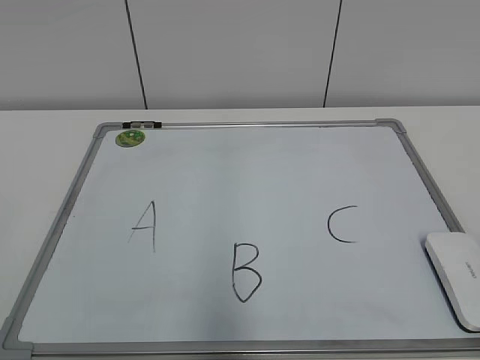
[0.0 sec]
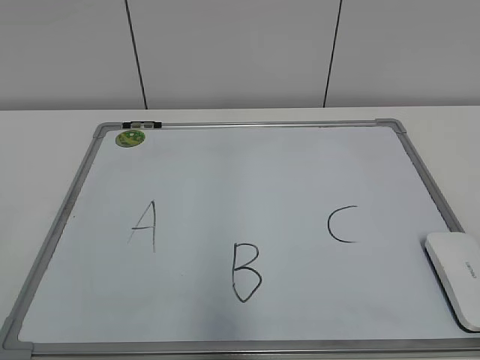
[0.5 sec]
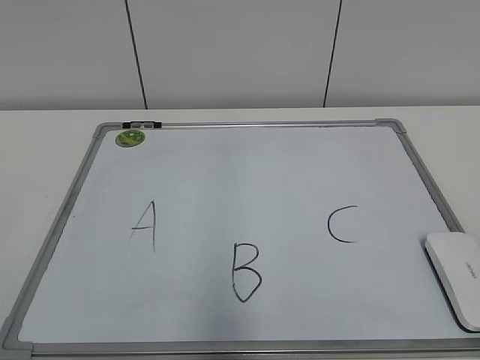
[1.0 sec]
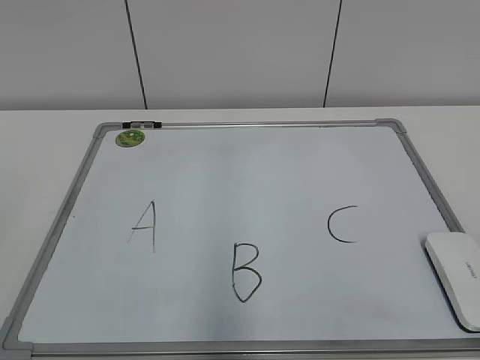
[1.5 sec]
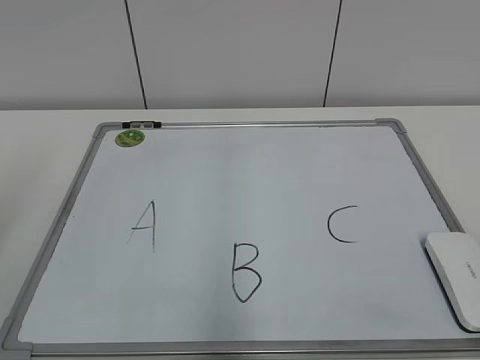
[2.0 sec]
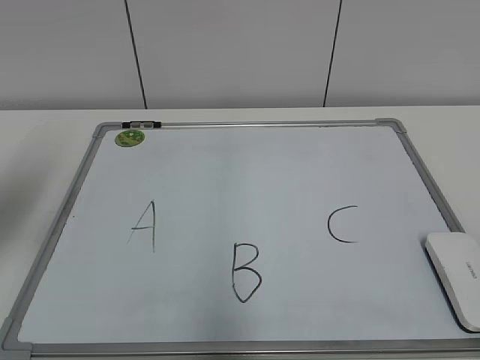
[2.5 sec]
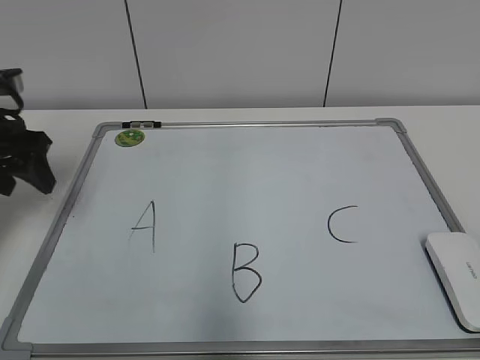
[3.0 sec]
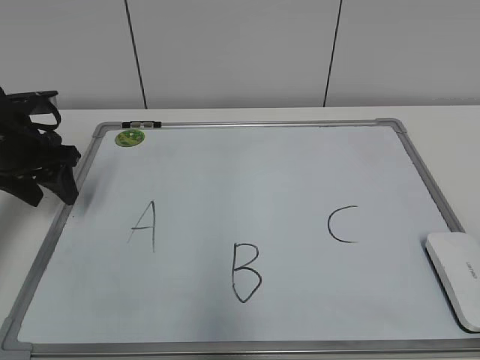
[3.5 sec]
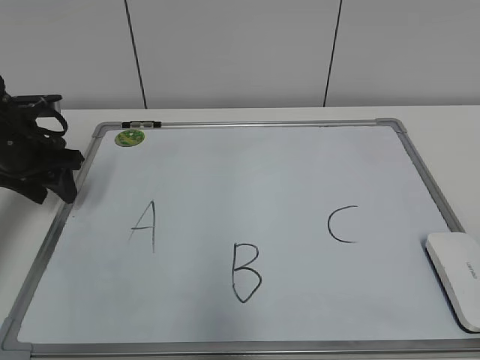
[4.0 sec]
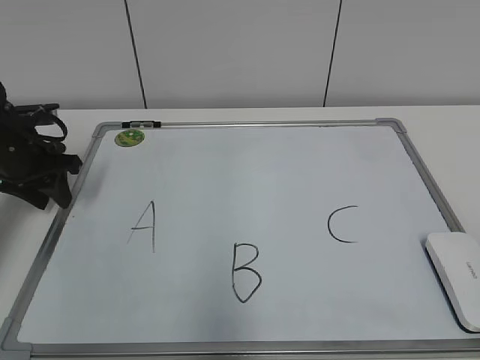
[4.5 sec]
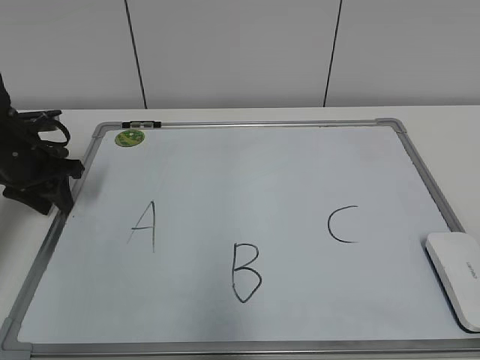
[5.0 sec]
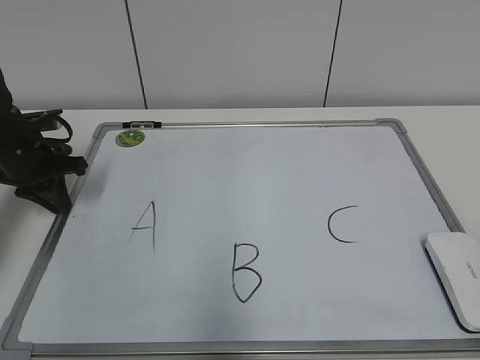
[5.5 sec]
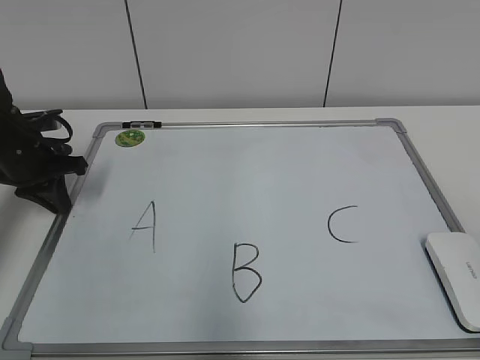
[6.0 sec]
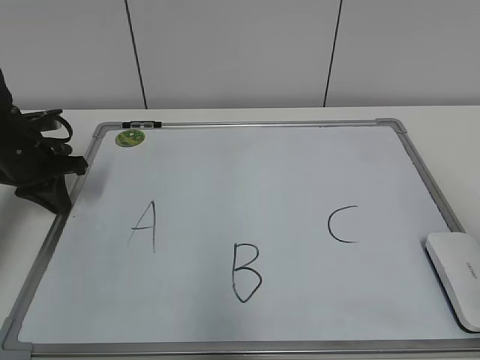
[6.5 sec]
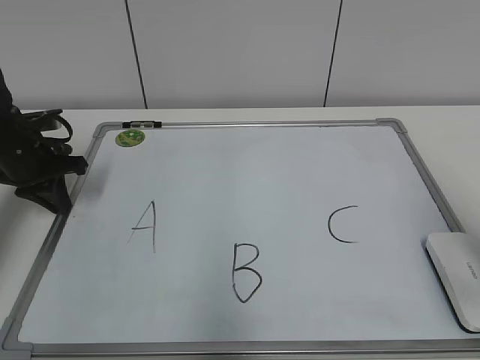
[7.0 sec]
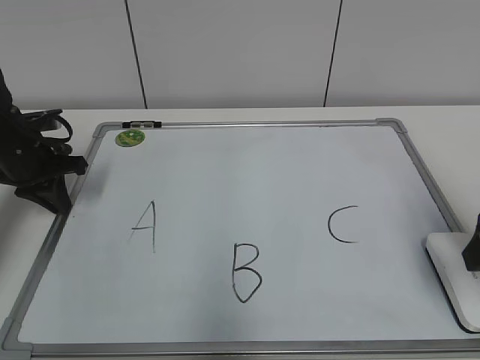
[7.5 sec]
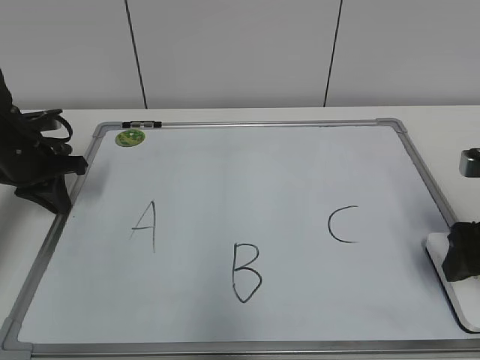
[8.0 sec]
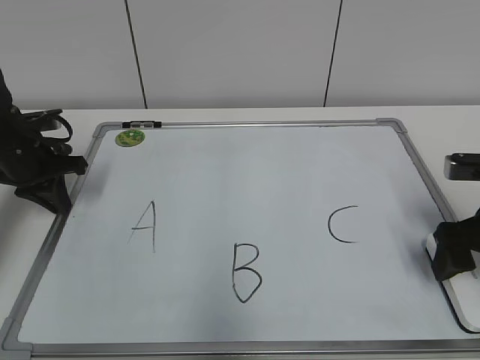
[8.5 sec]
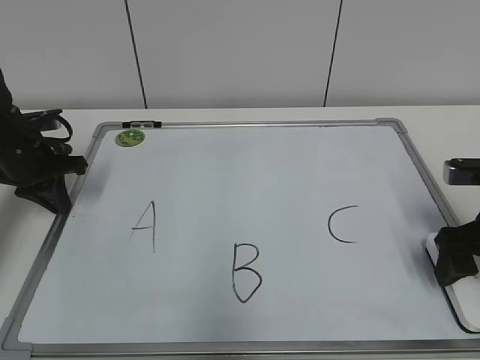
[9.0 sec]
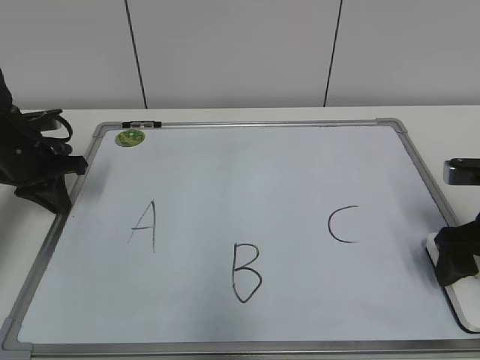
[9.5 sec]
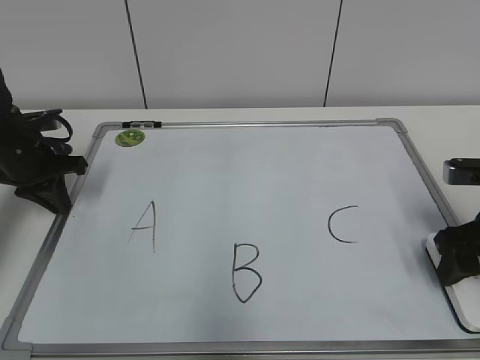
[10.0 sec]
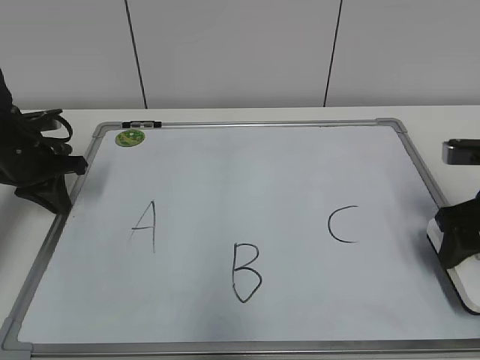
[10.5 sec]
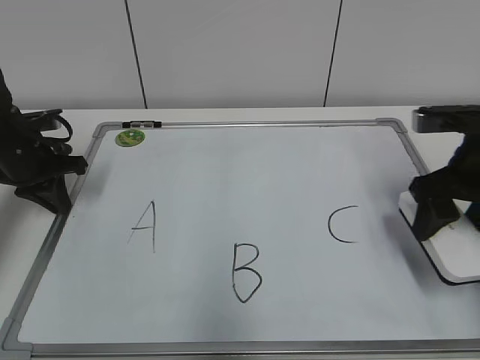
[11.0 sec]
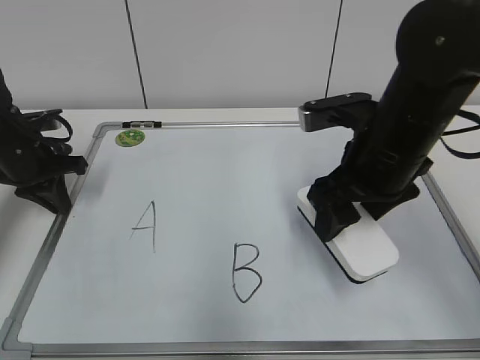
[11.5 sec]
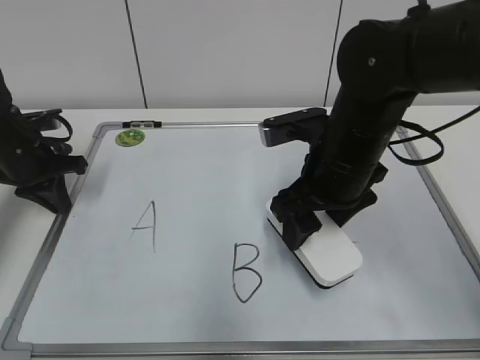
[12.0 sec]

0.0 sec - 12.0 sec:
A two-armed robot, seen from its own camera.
Task of the whole recording: pick up the eraser on the blackboard and erase the letter "B".
Step, 0.0 sec - 5.5 sec: Hold the drawing board steady with your left hand.
Step, 6.5 sec - 9.5 sec: Grab the eraser with your right hand.
2.0 sec - 4.0 sec: The left gripper is displaced forward and downward by roughly 30 cm.
4.0 sec - 6.0 sec: The left gripper closes up.
6.0 sec - 8.0 sec: The right gripper heads forward and downward, covering roughly 30 cm, and opens up.
8.0 sec - 10.0 sec: The right gripper closes.
10.0 sec - 12.0 sec: The right gripper travels to the left by roughly 20 cm.

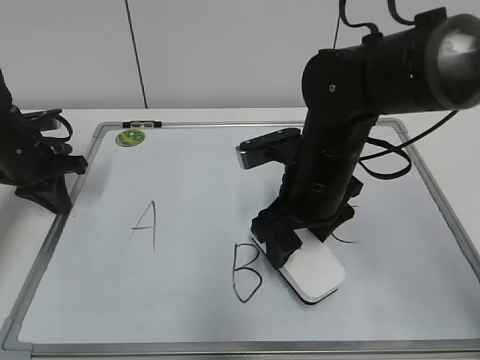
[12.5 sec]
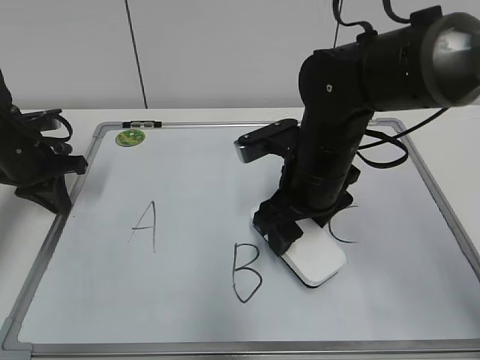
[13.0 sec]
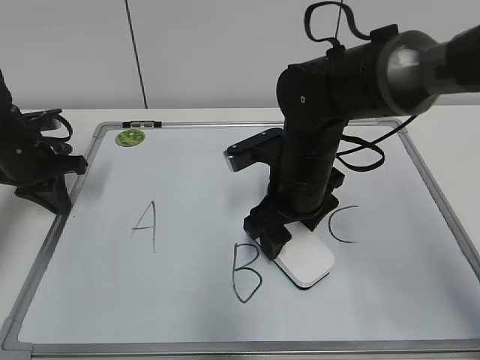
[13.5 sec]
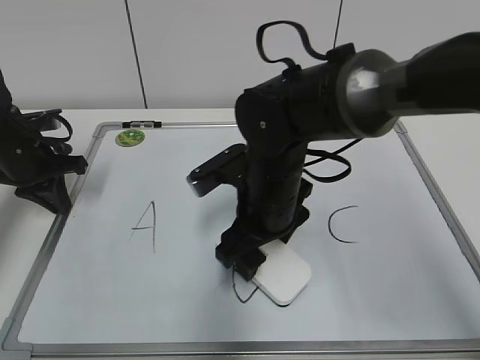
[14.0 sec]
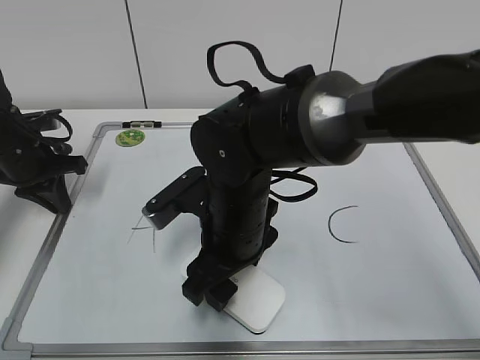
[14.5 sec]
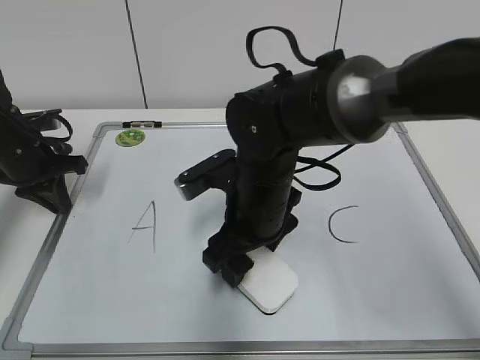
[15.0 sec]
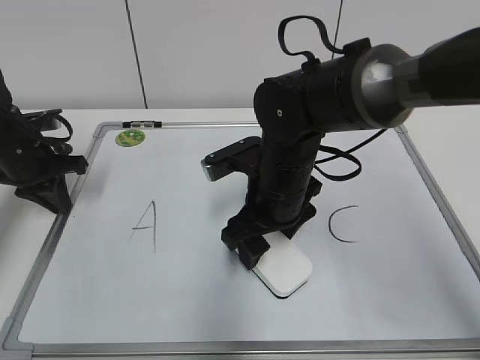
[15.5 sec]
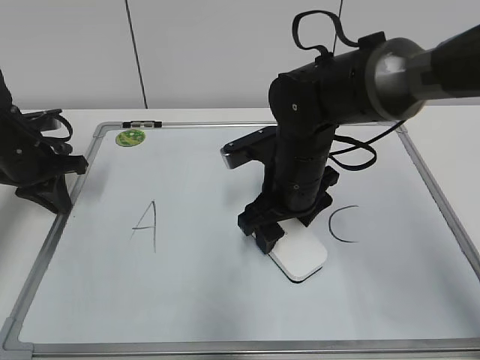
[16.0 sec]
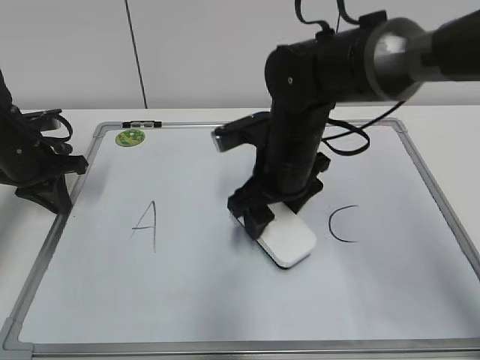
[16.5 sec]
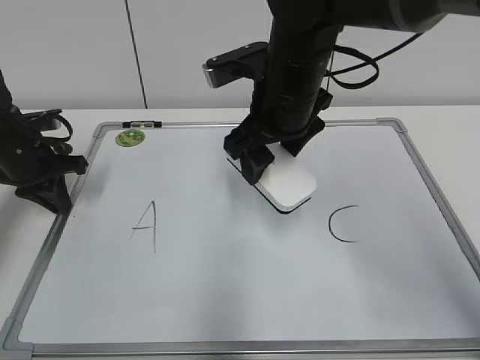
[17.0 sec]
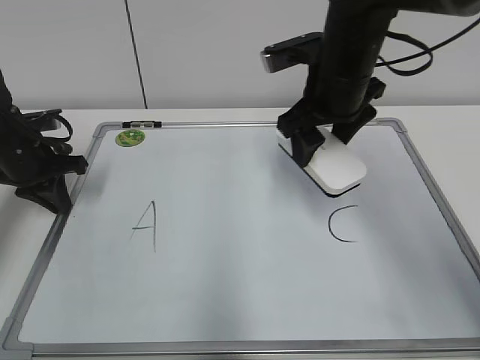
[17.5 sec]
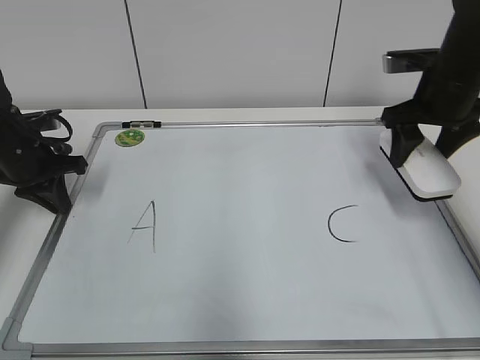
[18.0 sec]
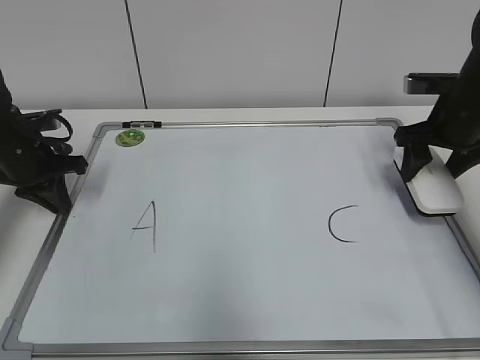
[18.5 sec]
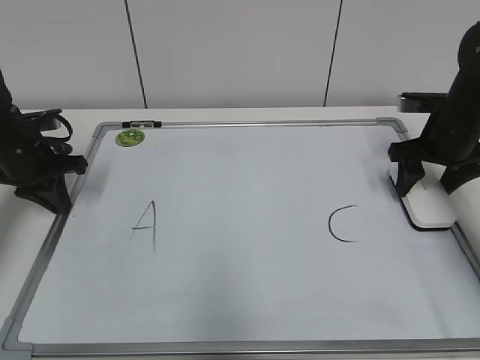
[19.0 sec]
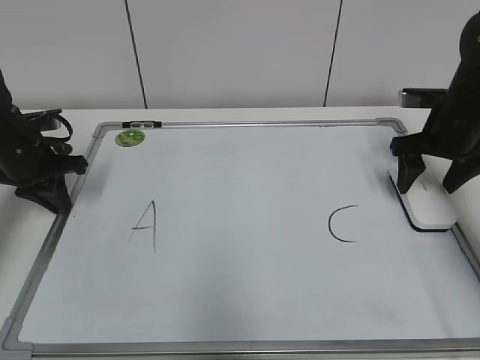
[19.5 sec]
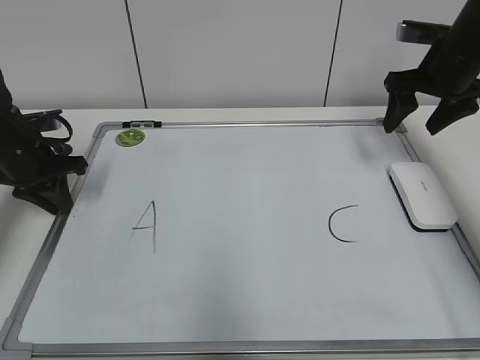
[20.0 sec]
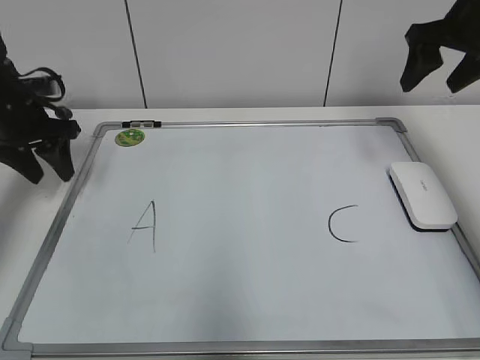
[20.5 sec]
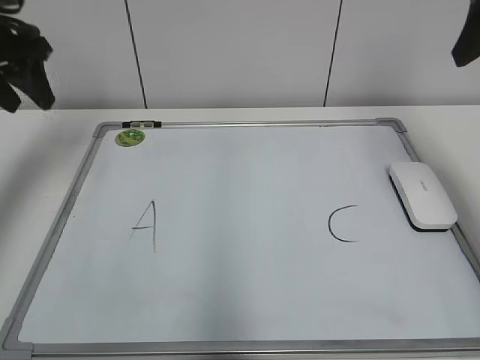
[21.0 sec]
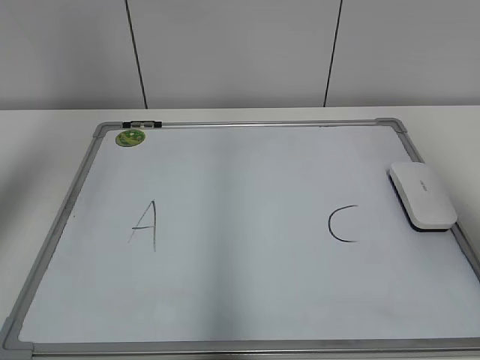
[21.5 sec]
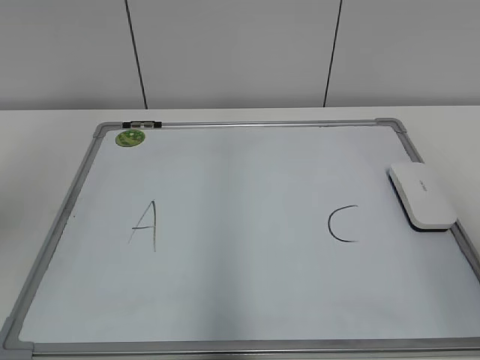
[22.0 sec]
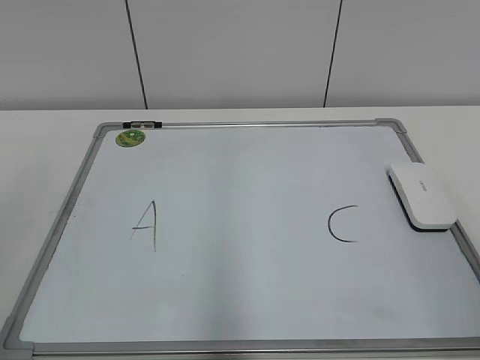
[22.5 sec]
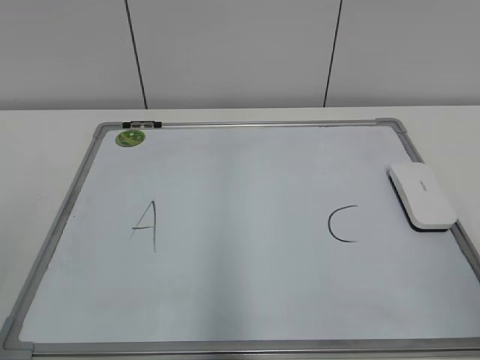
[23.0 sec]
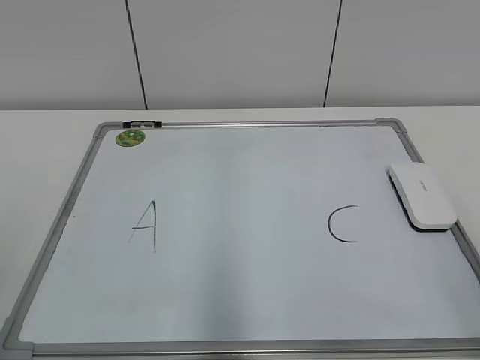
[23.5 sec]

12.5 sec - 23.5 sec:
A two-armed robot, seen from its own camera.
Task of the whole recording: pick up the eraser on the blackboard and erase the letter "B".
Step, 12.5 sec - 16.0 sec: Erase the letter B with your right hand.
Step, 16.5 sec - 19.0 sec: Put down the eraser with your right hand.
12.5 sec - 14.5 sec: The right gripper goes about 10 cm to the left.
14.5 sec - 16.0 sec: The right gripper moves to the right and forward, approximately 10 cm.
16.0 sec - 18.0 sec: The right gripper is displaced to the right and upward by roughly 20 cm.
18.0 sec - 20.0 sec: The right gripper travels downward and back again, about 5 cm each way, and opens its fingers.
20.0 sec - 21.5 sec: The right gripper travels backward and upward by roughly 25 cm, while the left gripper is displaced upward by some 30 cm, and opens up.
21.5 sec - 23.5 sec: The grippers both shift backward and downward by some 25 cm.
